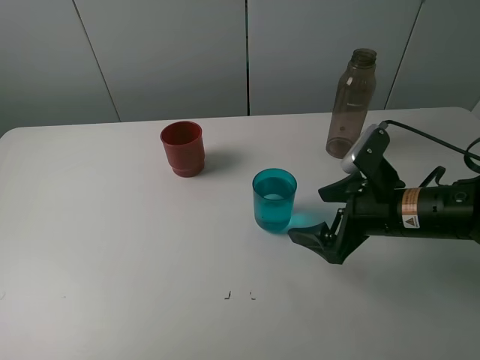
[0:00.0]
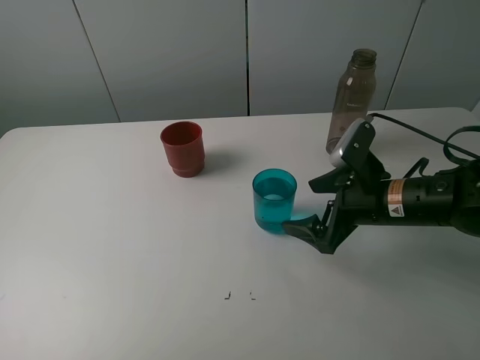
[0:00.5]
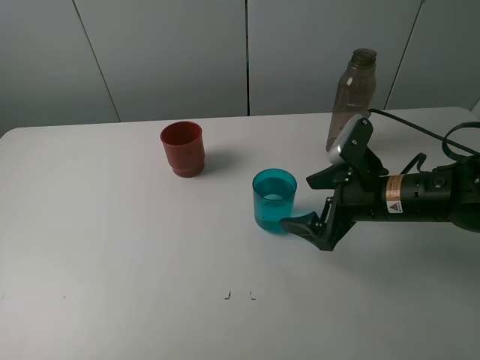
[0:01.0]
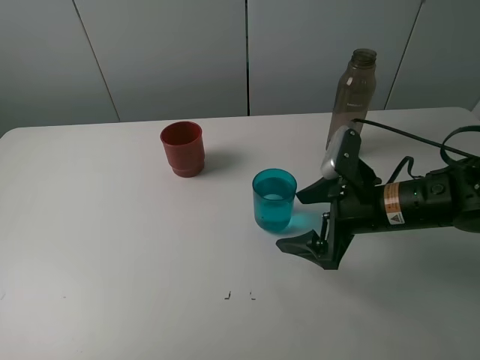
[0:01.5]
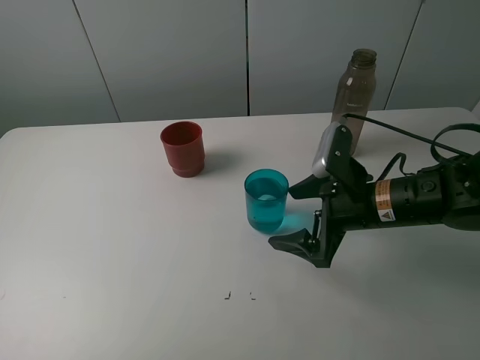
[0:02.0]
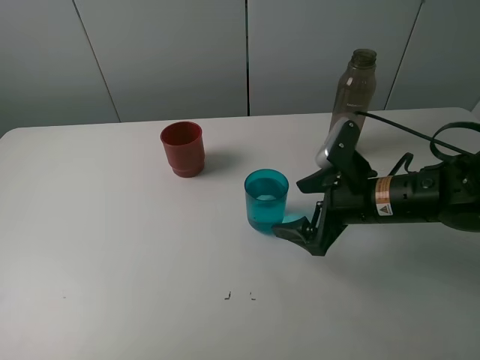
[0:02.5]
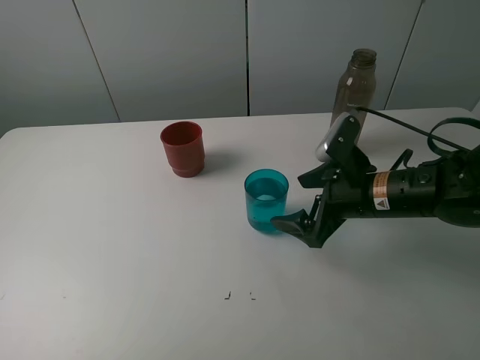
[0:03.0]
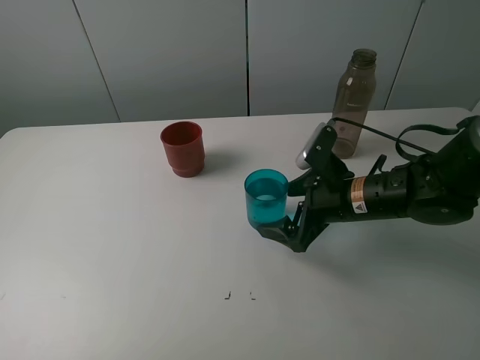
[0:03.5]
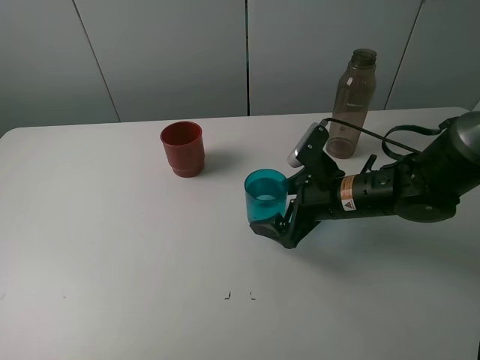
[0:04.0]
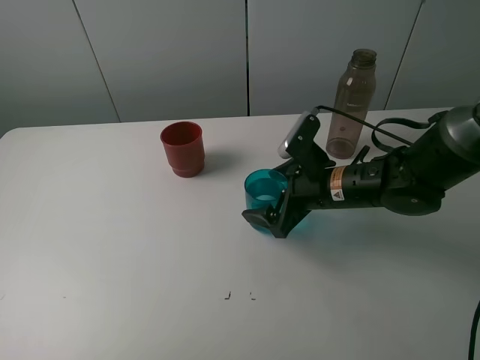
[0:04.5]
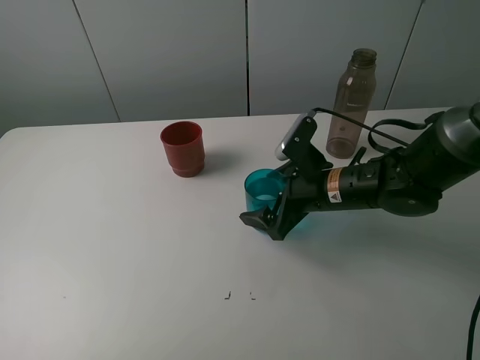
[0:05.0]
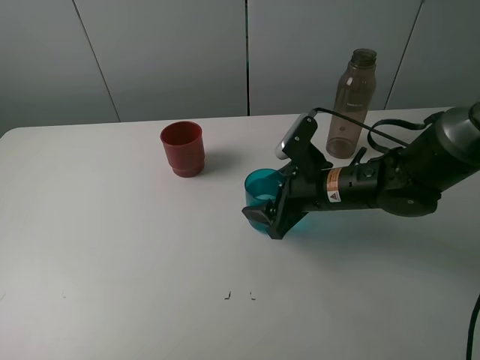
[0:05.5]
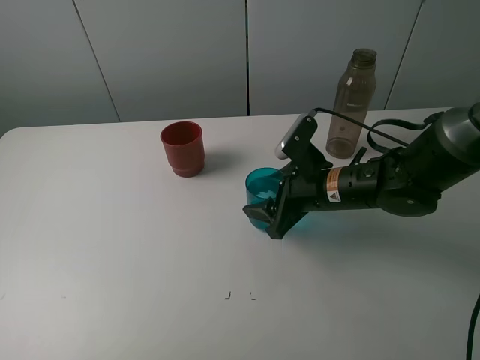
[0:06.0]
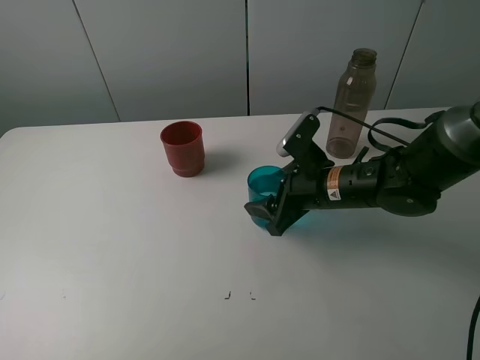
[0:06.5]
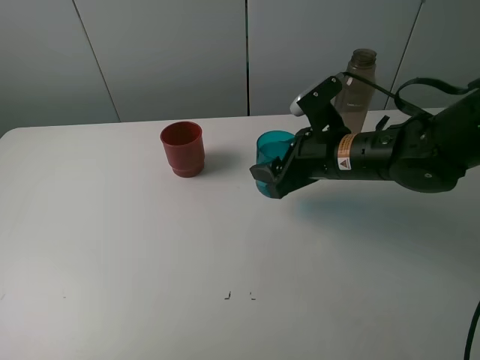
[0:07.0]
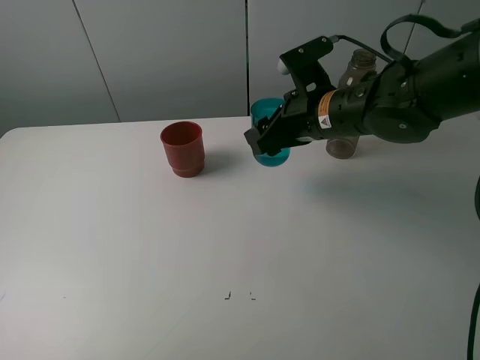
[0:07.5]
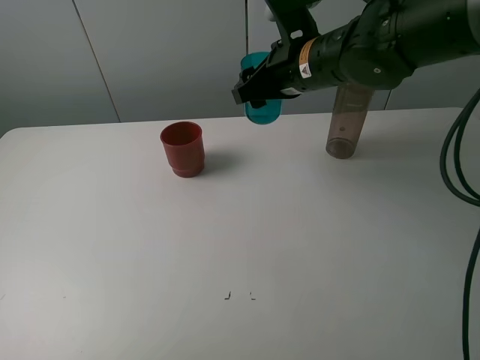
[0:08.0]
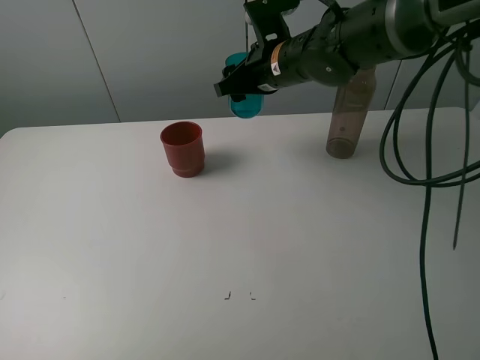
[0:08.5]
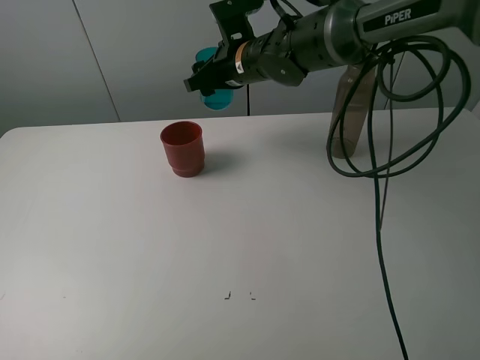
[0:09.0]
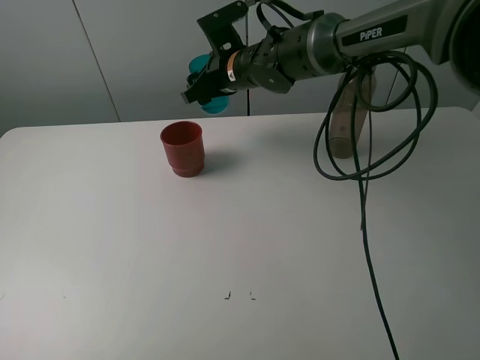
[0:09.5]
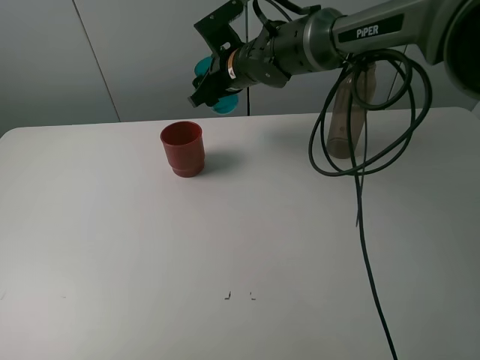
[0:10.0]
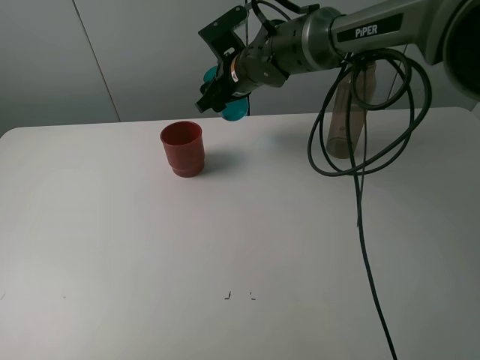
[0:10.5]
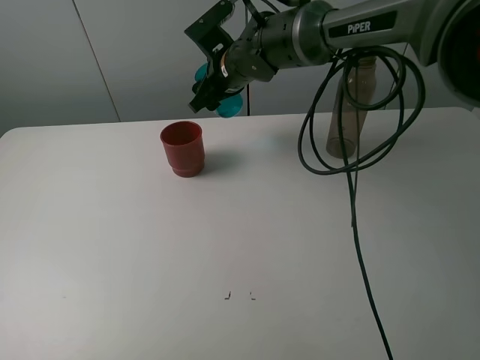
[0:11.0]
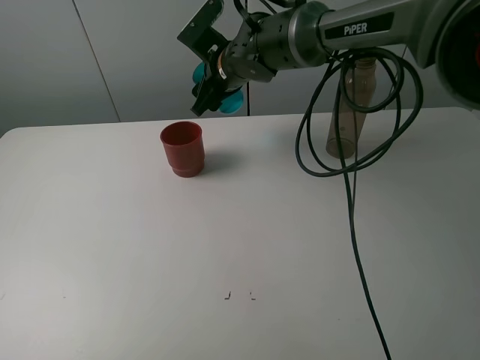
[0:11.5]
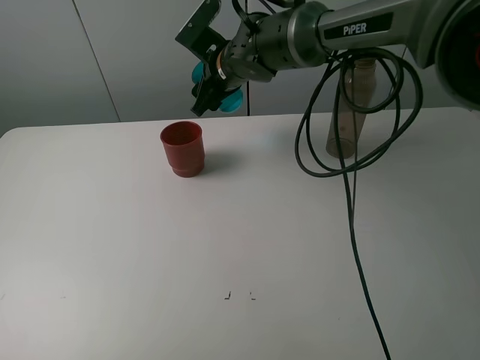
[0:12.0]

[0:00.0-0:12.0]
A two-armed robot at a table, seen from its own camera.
Task of the whole recording: pick up the bottle and pour water into the cup, then pick up the cup containing water and pour it into another cup.
Step, 0:00.0 to 0:05.5: Grasp the blue cup with the right gripper.
0:00.0 to 0:02.0: There are only small adjustments of the grippers.
0:02.0 to 0:04.0: The grippers move only a little.
0:04.0 to 0:06.0: The right gripper closes.
0:06.0 to 0:08.0: The right gripper is displaced upward and forward by approximately 15 cm.
0:08.0 to 0:10.0: The right gripper goes some 10 cm forward and to the left.
0:10.0 to 0:12.0: The grippers make only small movements.

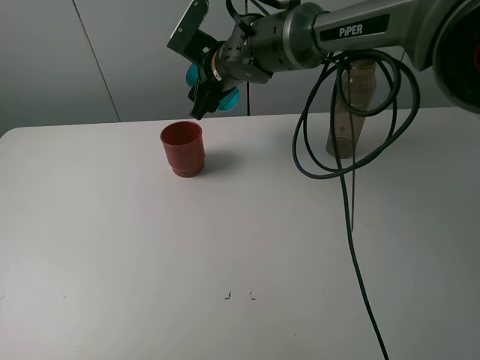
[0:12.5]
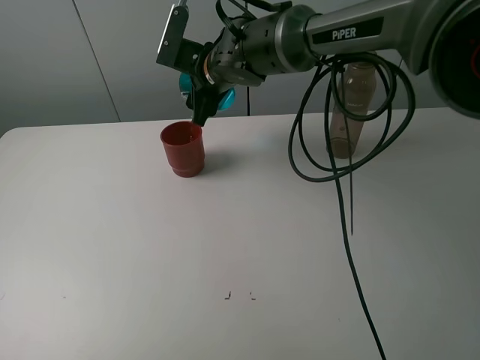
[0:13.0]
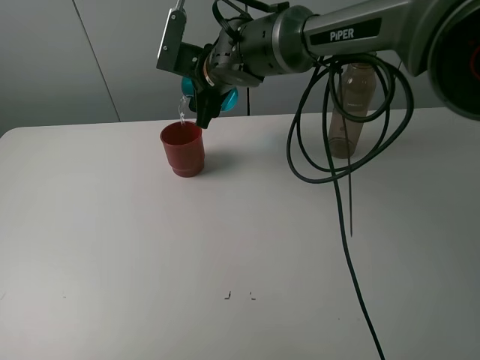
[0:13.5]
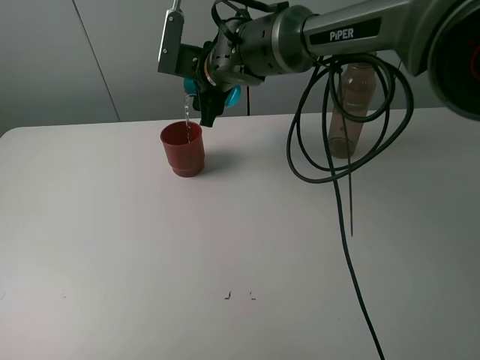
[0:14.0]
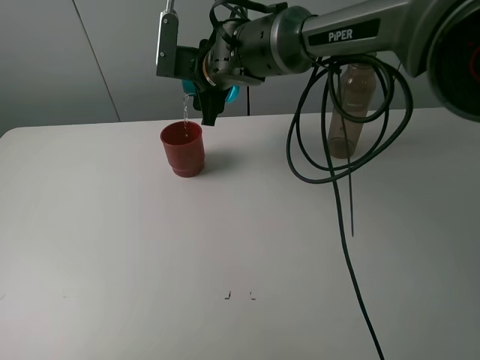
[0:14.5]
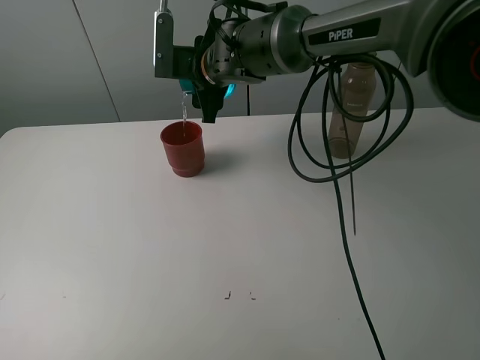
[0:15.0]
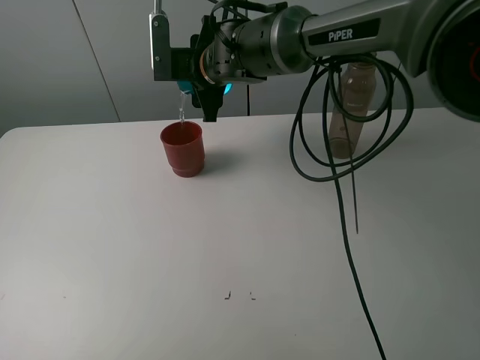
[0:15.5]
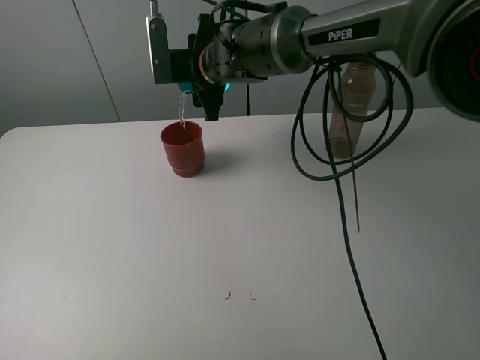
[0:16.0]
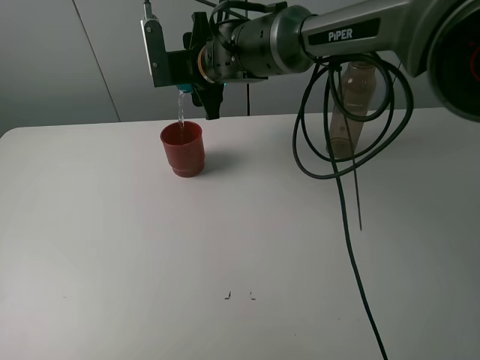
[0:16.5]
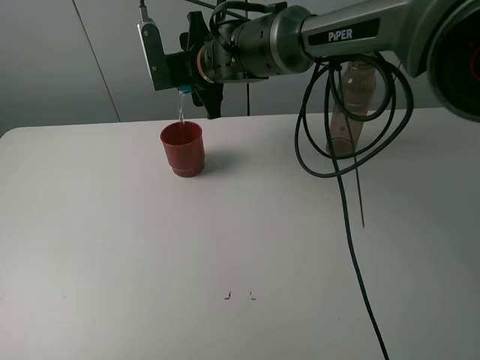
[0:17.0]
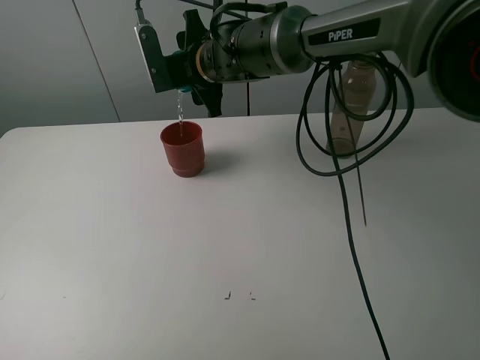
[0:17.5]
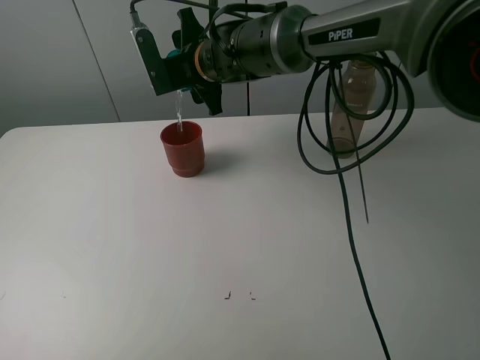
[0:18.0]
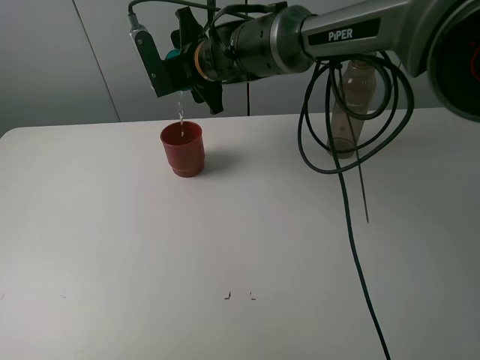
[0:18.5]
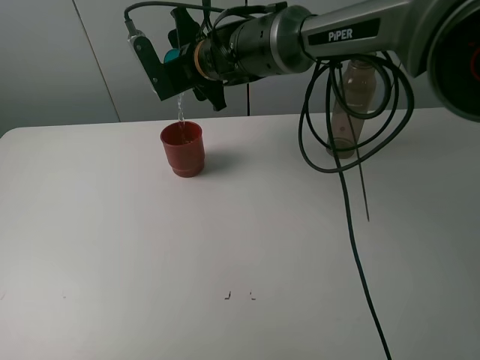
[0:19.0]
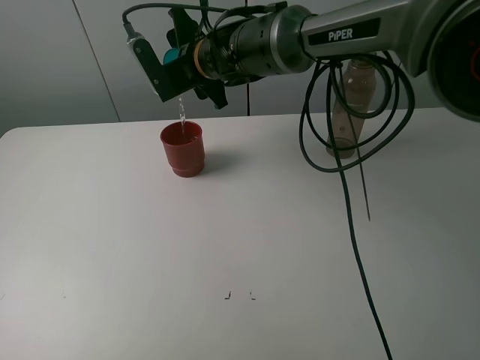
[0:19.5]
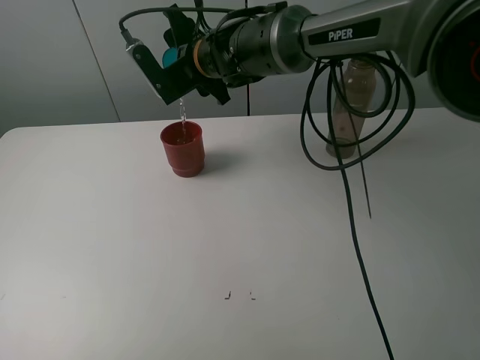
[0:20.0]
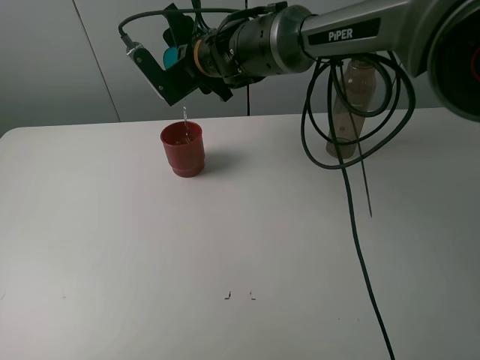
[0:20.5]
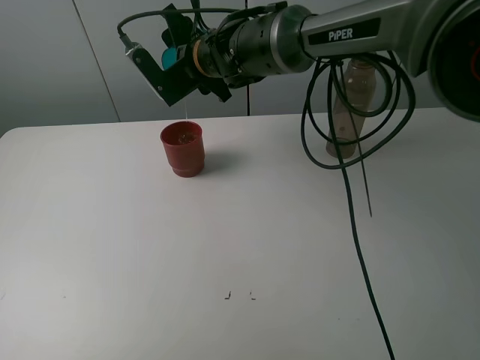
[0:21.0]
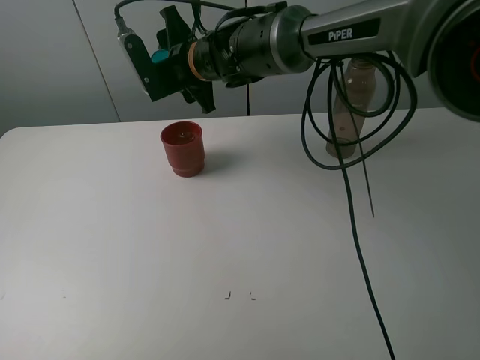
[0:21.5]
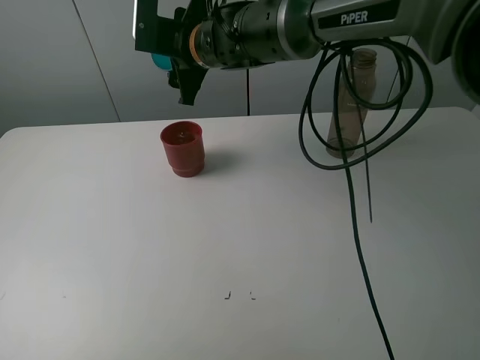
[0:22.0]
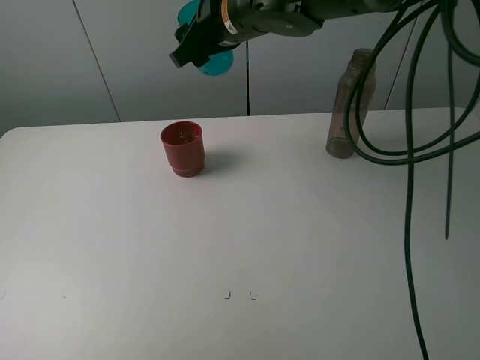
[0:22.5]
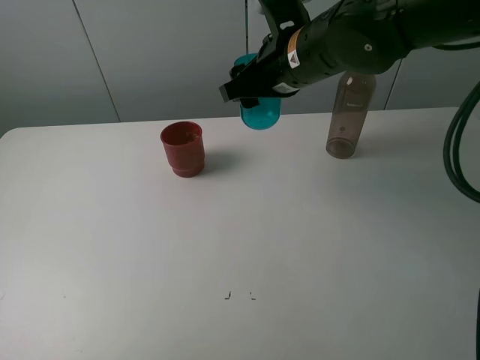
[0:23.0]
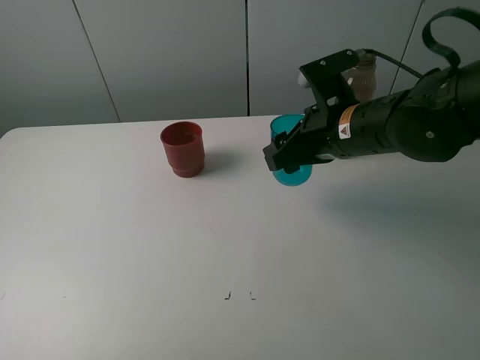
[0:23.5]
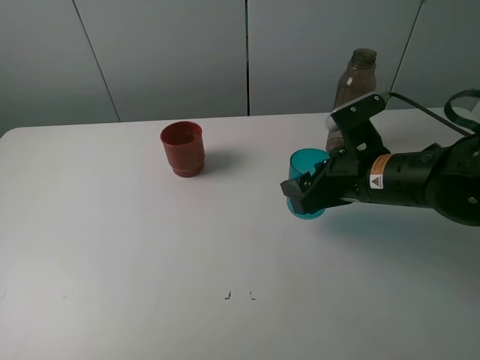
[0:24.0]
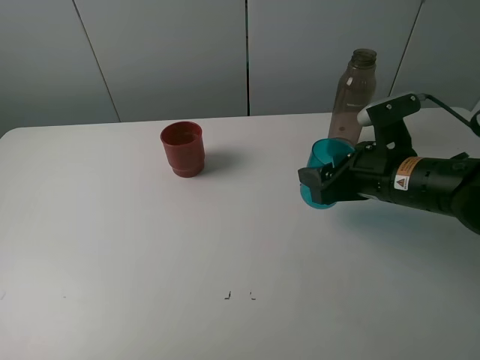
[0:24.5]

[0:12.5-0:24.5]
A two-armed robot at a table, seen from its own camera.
Task of the whole recording: pick up the bottle and pour water into the cup, then pick up the cup containing water and pour it into another cup.
Step, 0:12.5 to 0:21.0: Pour water from blue cup to red cup with the right gripper.
0:14.5 to 0:16.5: The grippers move only a little.
0:16.5 to 0:18.5: The grippers stay close to where they were, moving slightly.
0:18.5 to 0:20.5: The grippers stay close to where they were, moving slightly.
0:20.5 to 0:22.5: The right gripper travels upward and backward by some 10 cm.
0:22.5 to 0:24.5: The right gripper goes roughly 25 cm to the right, downward and backward.

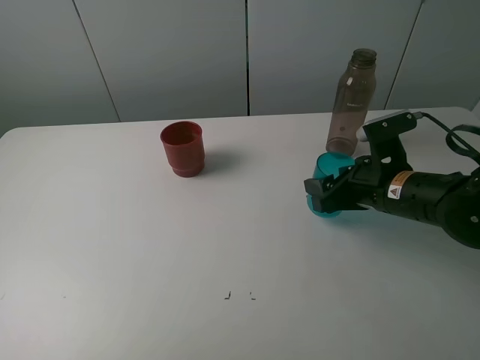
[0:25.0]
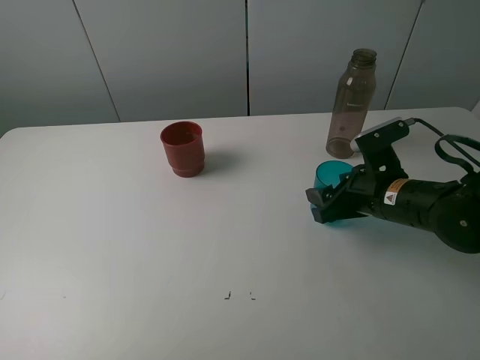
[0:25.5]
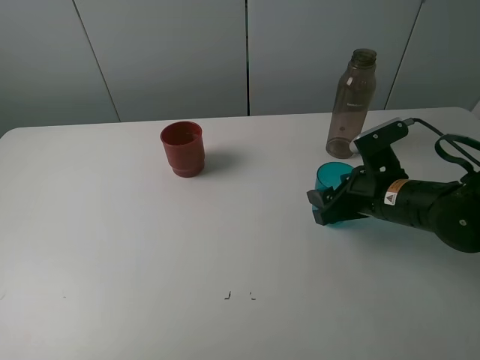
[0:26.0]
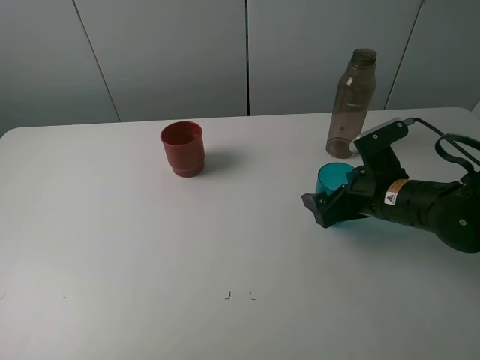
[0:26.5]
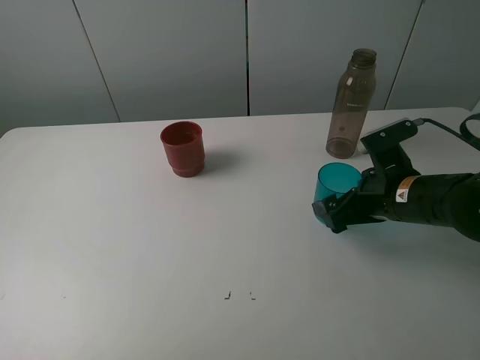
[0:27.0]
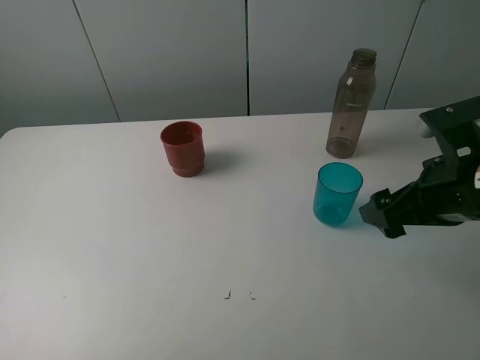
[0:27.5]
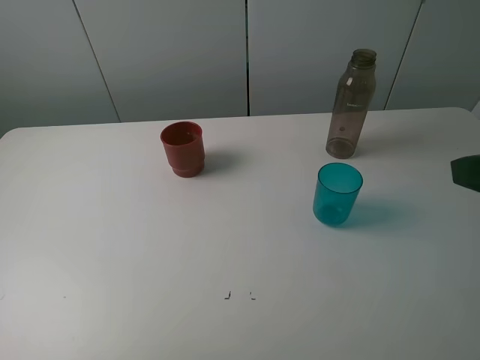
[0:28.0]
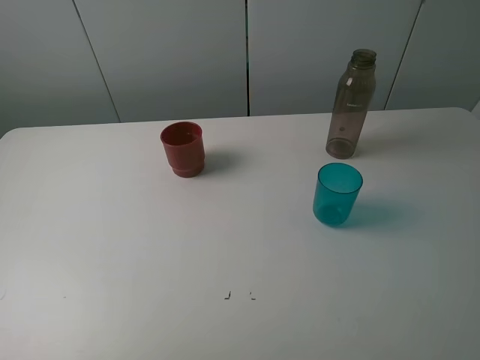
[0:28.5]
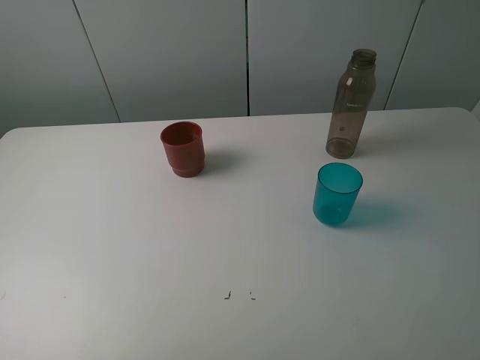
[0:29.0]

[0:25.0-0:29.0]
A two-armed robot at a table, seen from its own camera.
Task of the whole recording: pick up the bottle and pour water into the cup, then pick up the cup containing water and pour it into another cup.
0:25.0 to 0:27.0: The right gripper opens up.
0:27.0 to 0:29.0: The right gripper heads backward and upward, covering approximately 30 cm.
